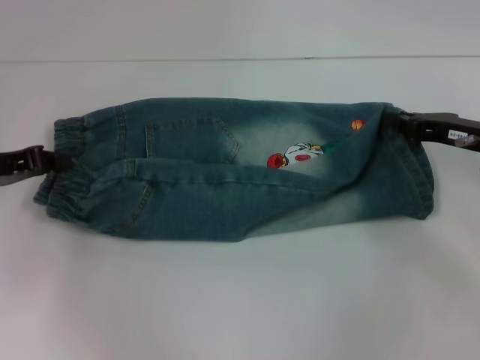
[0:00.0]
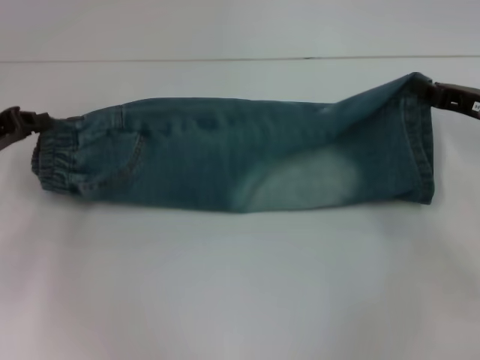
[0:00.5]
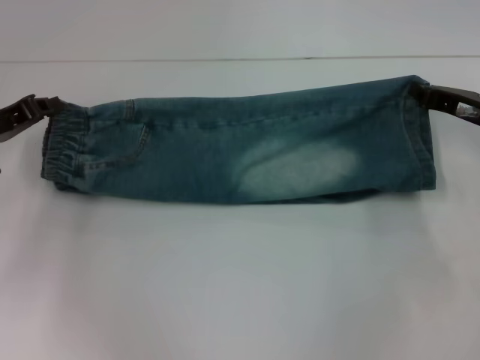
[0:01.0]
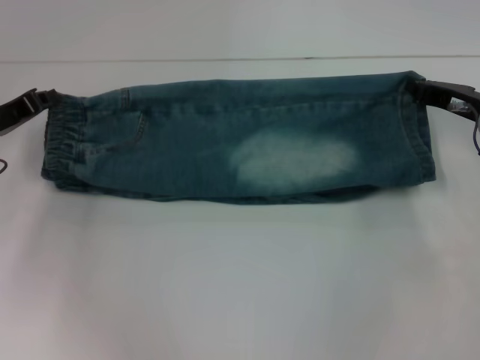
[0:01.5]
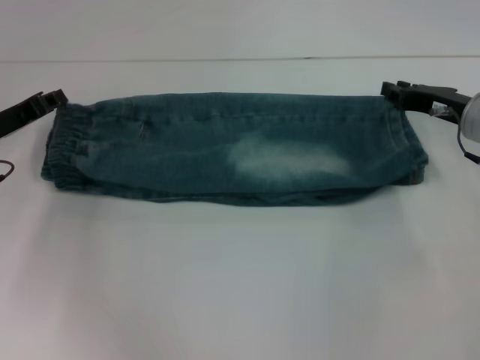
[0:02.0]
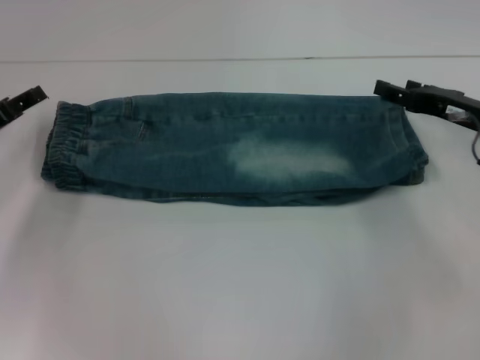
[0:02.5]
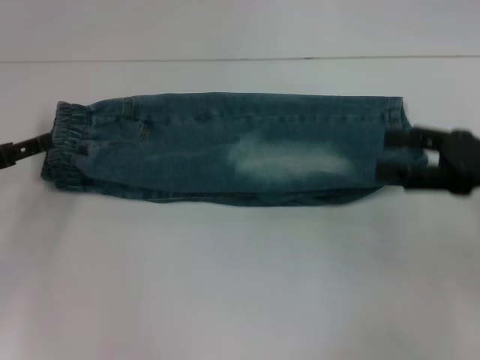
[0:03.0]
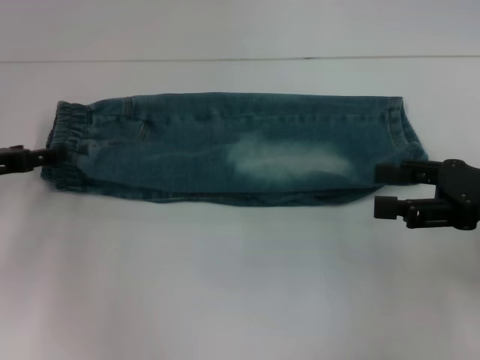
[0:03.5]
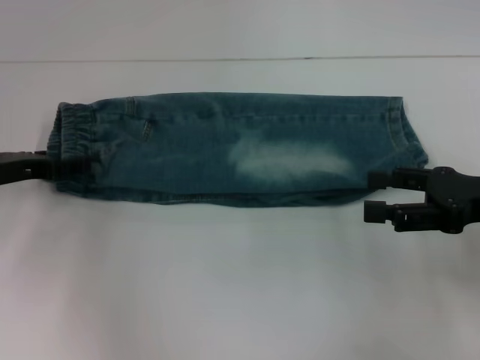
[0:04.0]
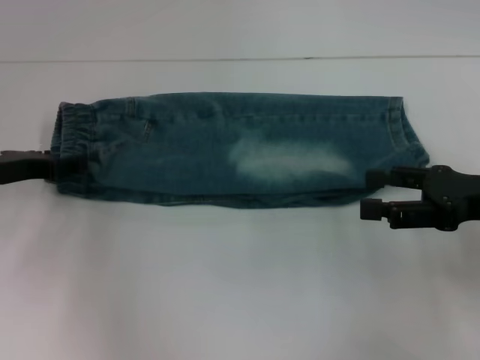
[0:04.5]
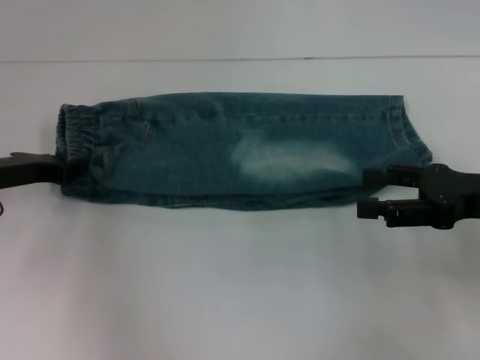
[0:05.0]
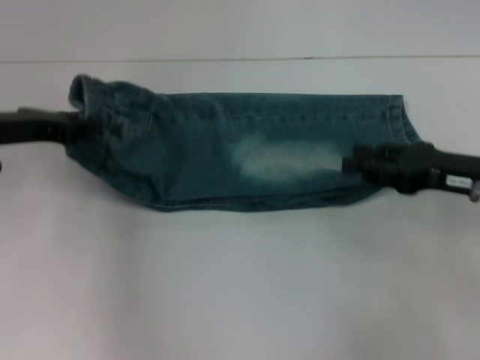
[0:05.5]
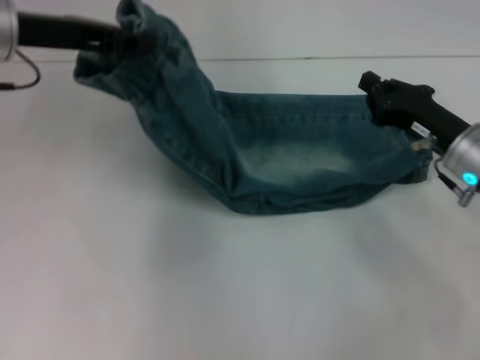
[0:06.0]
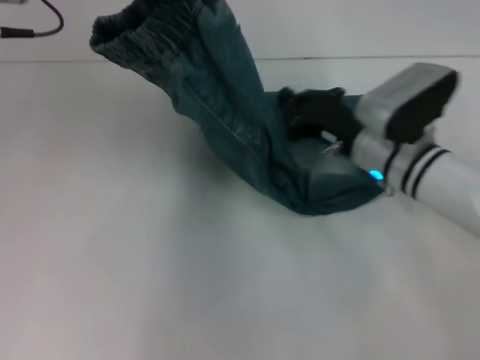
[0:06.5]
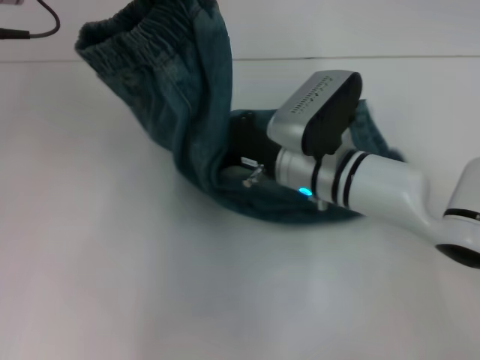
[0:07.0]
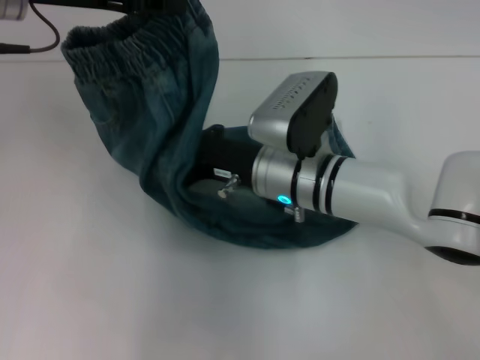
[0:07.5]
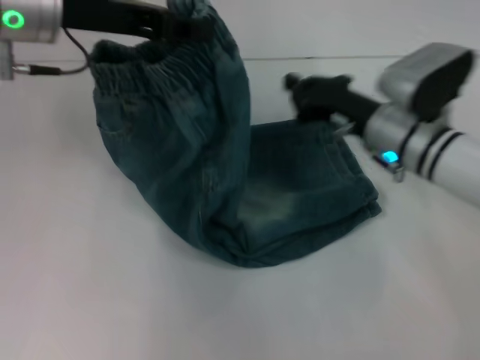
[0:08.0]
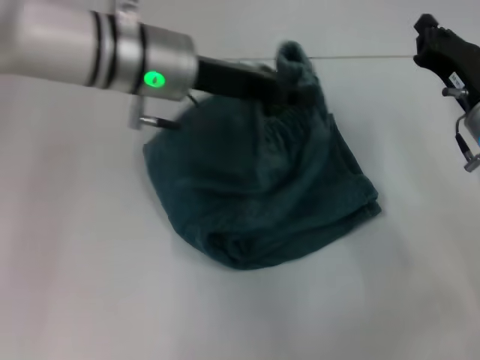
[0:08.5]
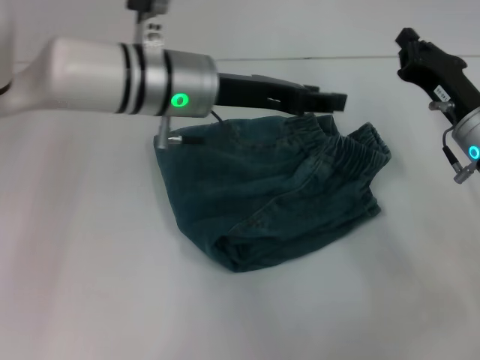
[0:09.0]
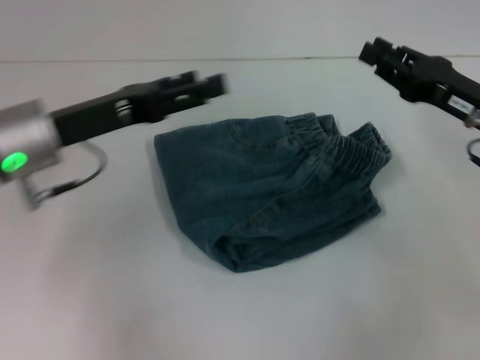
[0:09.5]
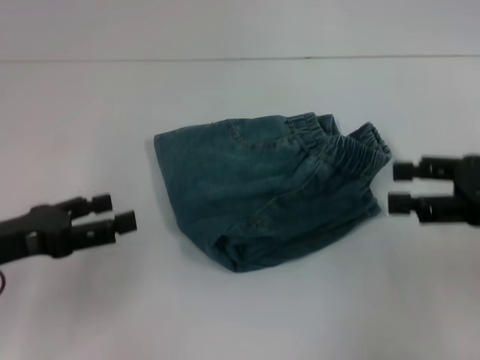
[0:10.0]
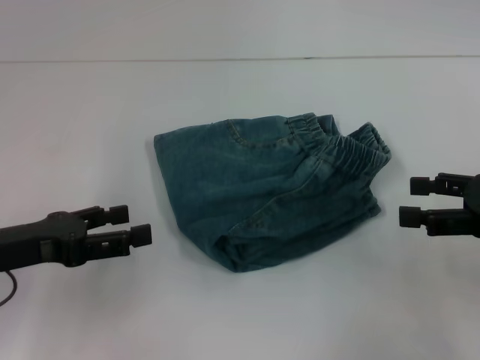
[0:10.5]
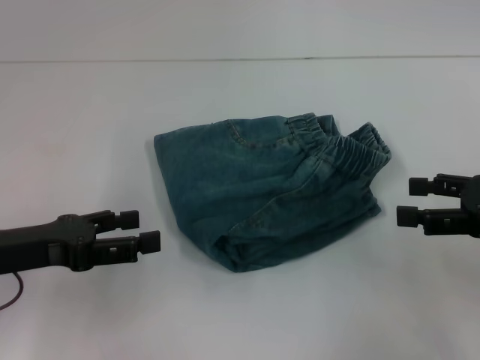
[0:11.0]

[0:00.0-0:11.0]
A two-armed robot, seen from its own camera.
Step, 0:00.0 to 0:02.0: Fold upward with your right hand.
Step, 0:02.5 to 0:05.0: Hold the waistband with your left hand.
Step, 0:05.5 to 0:07.5: Press the middle of the pants with your right hand.
Step, 0:08.0 to 0:08.5: Fold to the right with your left hand.
0:02.0 to 0:03.5: The right gripper moves backward and upward, some 15 cm, and opens up; the left gripper opens its fingers.
0:03.5 to 0:05.5: The left gripper shifts approximately 5 cm upward, and closes.
0:05.5 to 0:07.5: The left gripper heads upward and to the right, covering approximately 15 cm, while the right gripper heads to the left, covering approximately 25 cm, and closes.
0:07.5 to 0:09.0: The right gripper goes about 20 cm to the right. The left gripper travels to the right and downward by approximately 15 cm, and opens its fingers.
0:09.0 to 0:11.0: The right gripper is displaced backward, to the right and upward by roughly 15 cm, and opens up. The left gripper travels to the left and backward by roughly 25 cm, and opens up.
